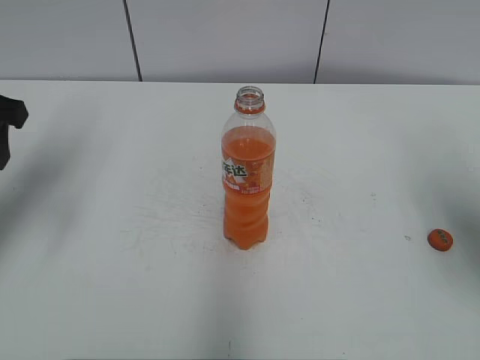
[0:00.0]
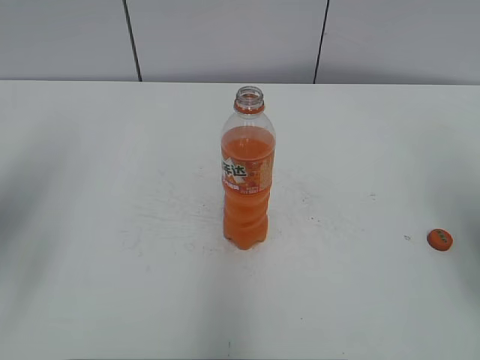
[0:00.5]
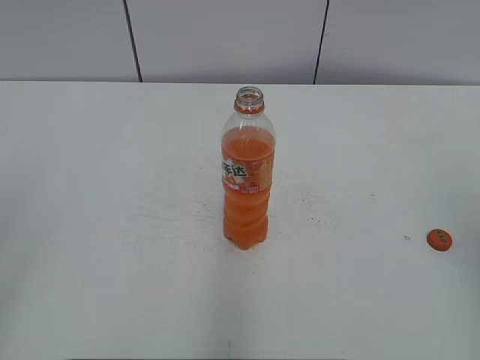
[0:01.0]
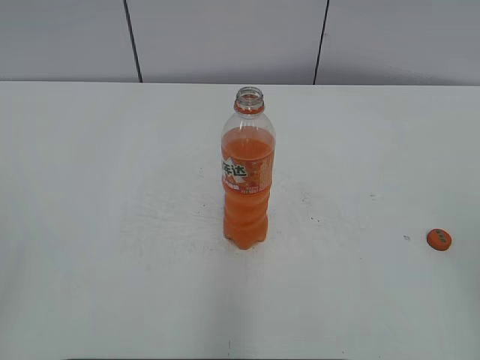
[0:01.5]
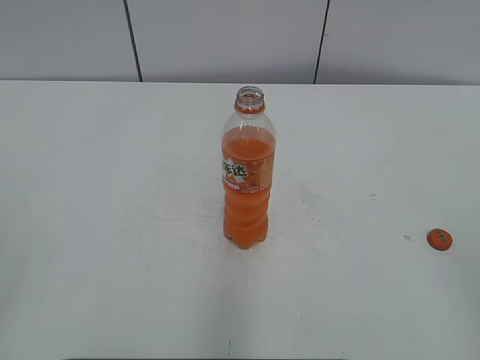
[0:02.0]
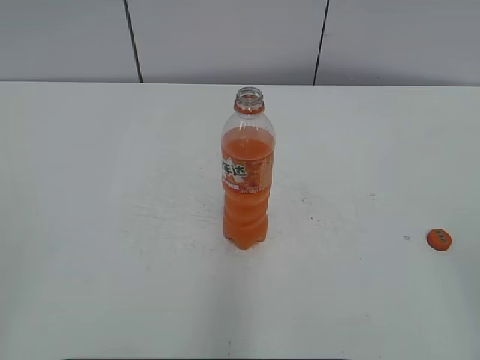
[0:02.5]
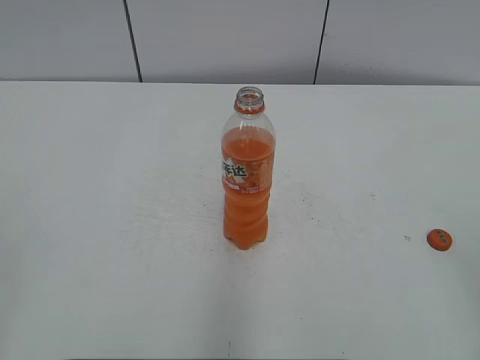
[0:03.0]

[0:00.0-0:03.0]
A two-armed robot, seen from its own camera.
0:00.0 to 0:01.5: Both grippers travel together backward, roughly 25 cm. The left gripper closes up.

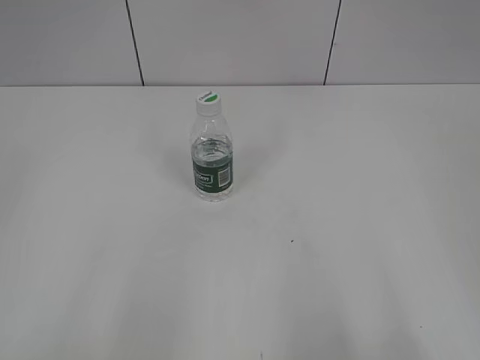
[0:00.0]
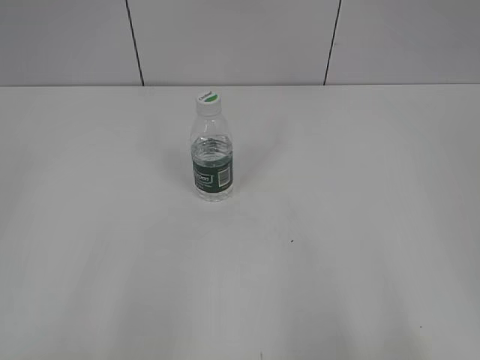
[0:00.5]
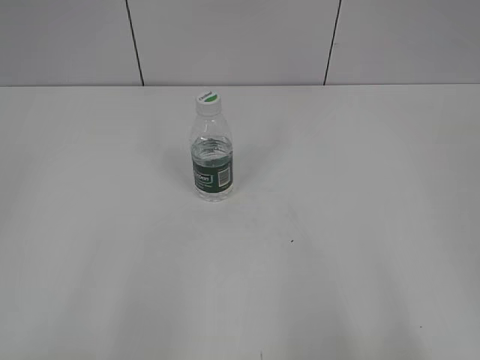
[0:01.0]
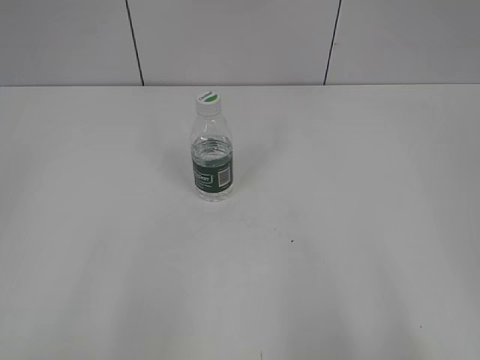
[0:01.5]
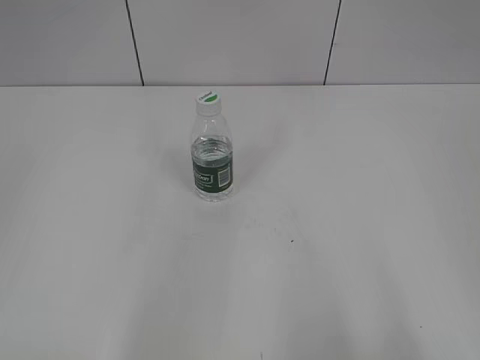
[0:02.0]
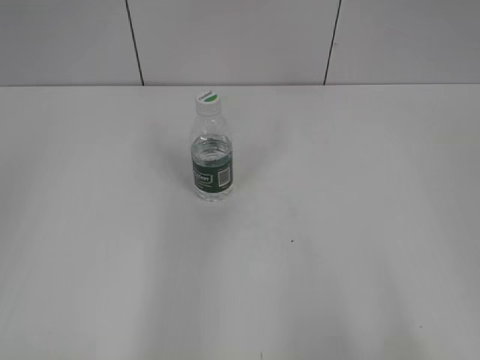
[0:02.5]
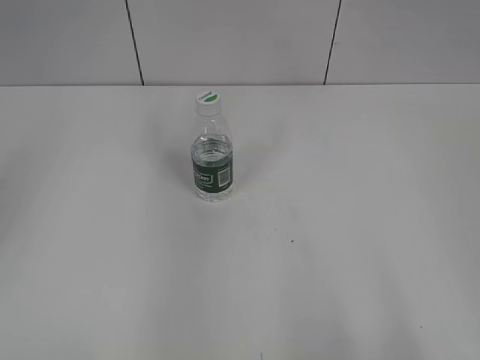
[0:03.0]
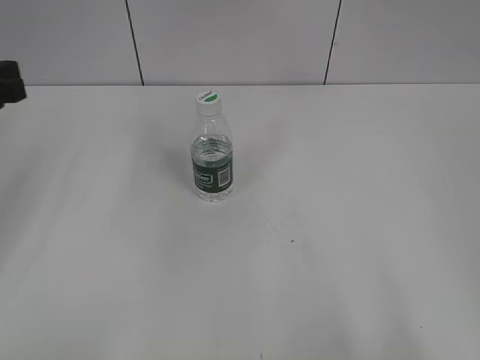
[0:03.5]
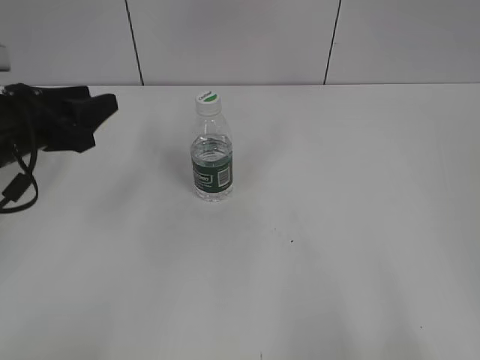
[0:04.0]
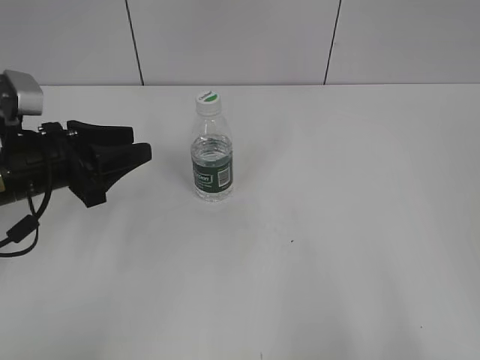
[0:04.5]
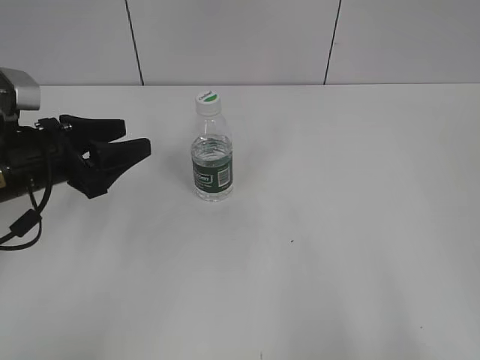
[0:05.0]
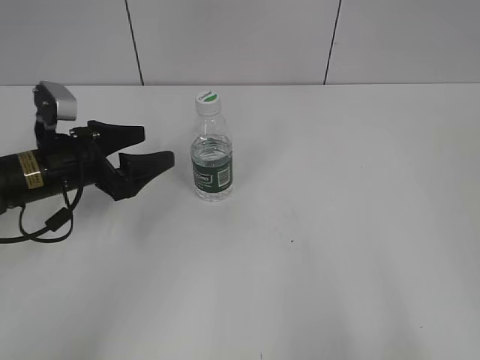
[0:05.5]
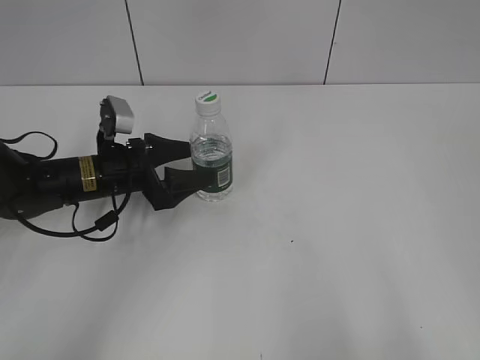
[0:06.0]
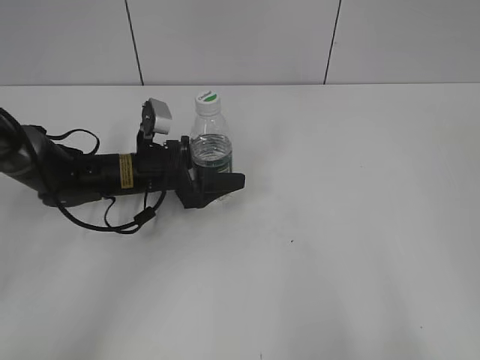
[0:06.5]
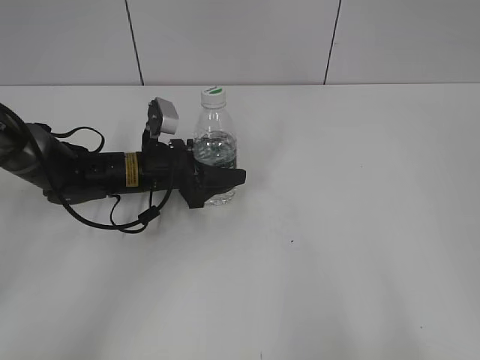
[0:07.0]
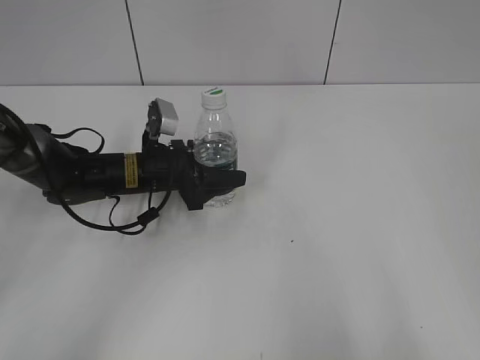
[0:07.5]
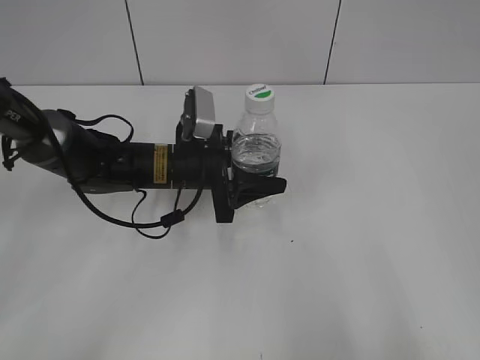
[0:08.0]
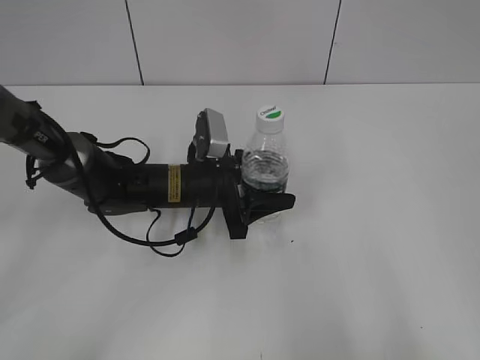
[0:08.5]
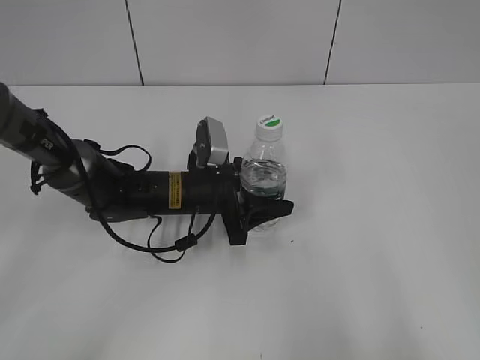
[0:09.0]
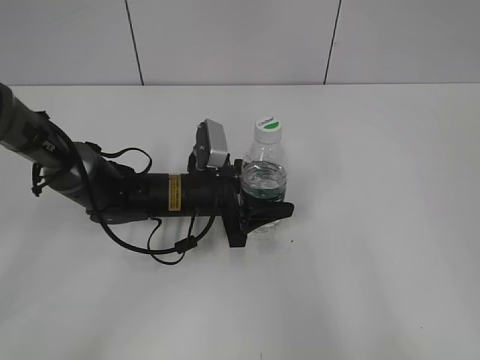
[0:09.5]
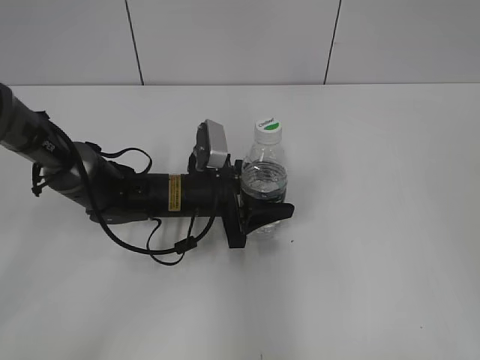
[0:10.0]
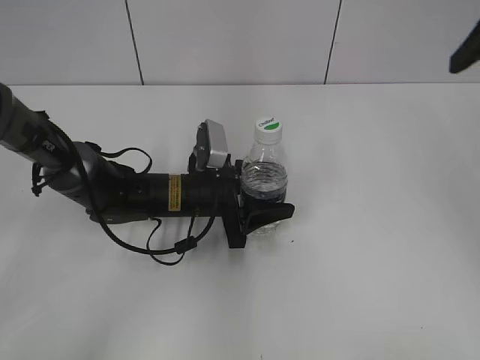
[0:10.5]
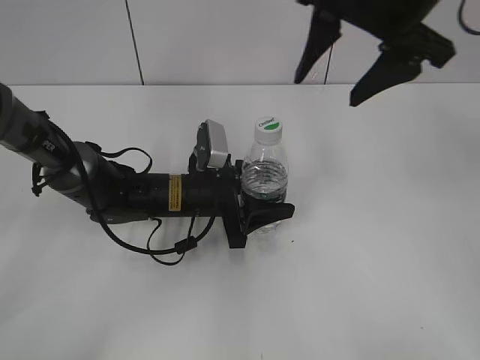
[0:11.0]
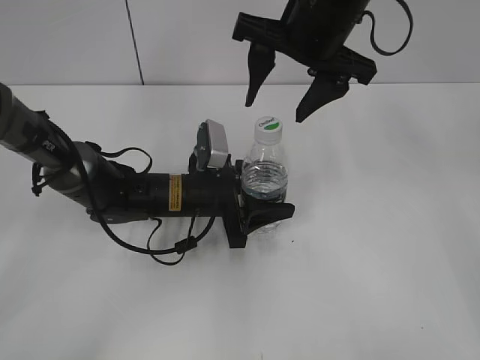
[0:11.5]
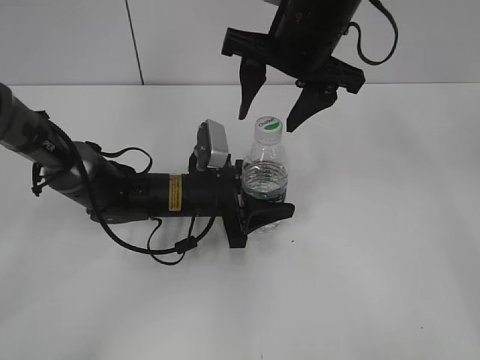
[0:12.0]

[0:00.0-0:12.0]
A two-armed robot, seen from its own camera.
Step, 0:00.0 to 0:07.0: Grasp the bottle and move it to the center of the table with the left gripper.
Step, 0:07.5 to 0:09.5: Lift the bottle and move it to the center of the table with the left gripper.
0:02.0 to 0:04.0: The left gripper goes approximately 35 cm forward and downward.
0:04.0 to 0:06.0: The left gripper goes approximately 15 cm downward, to the right and forward, and opens.
0:06.0 to 0:08.0: The left gripper goes about 10 cm to the right, and closes up.
0:08.0 to 0:10.0: The right gripper heads forward, covering about 10 cm.
0:10.0 to 0:12.0: The right gripper travels forward and to the left by approximately 30 cm.

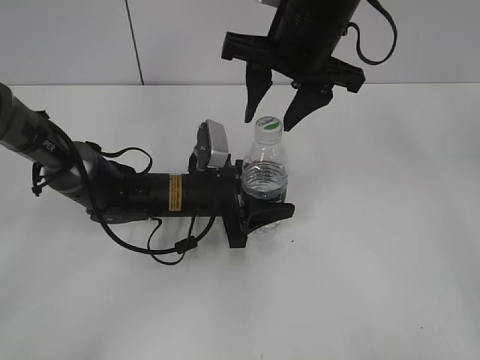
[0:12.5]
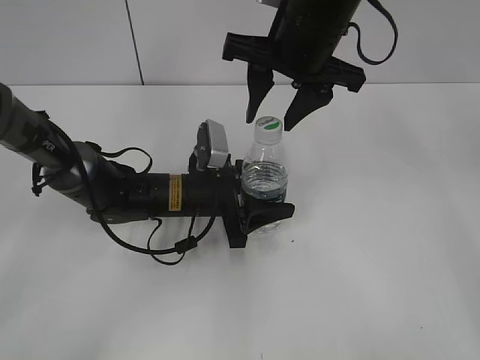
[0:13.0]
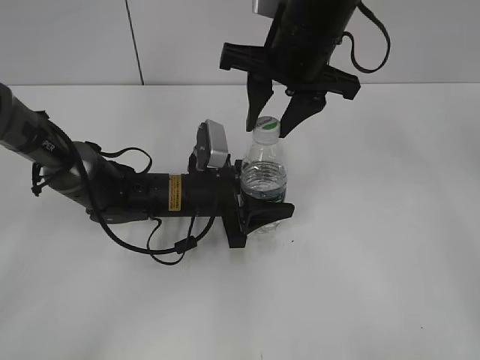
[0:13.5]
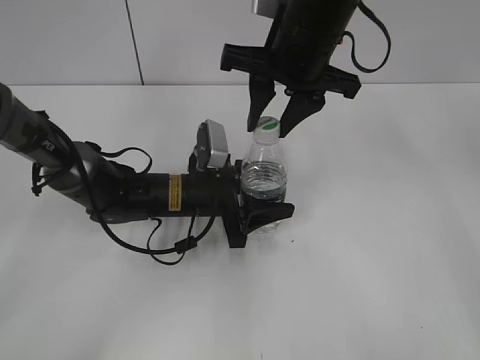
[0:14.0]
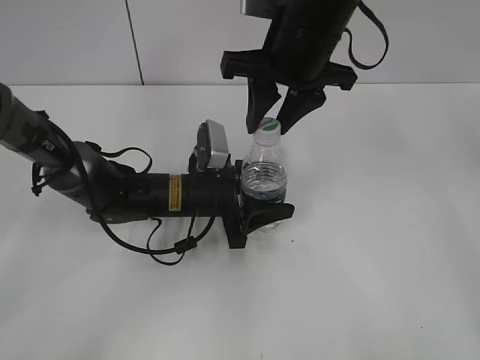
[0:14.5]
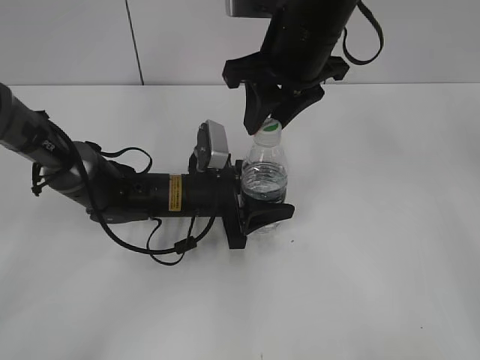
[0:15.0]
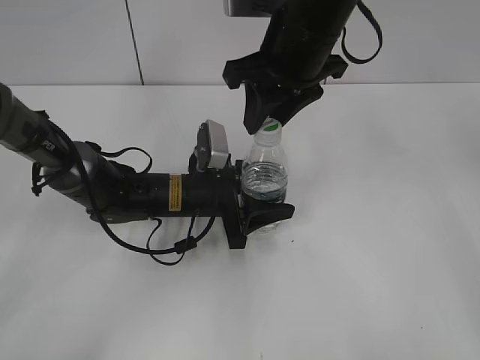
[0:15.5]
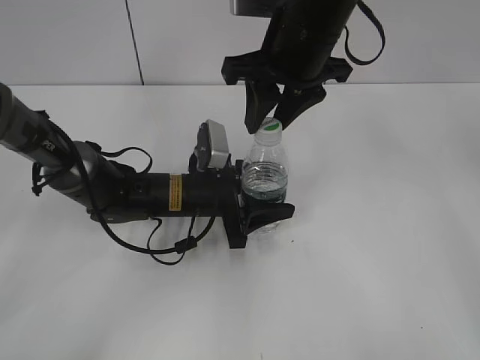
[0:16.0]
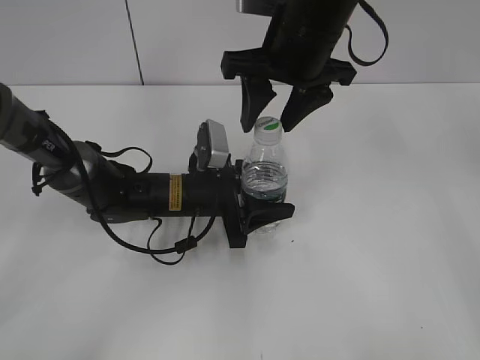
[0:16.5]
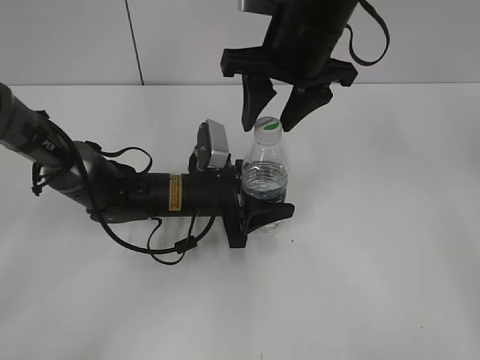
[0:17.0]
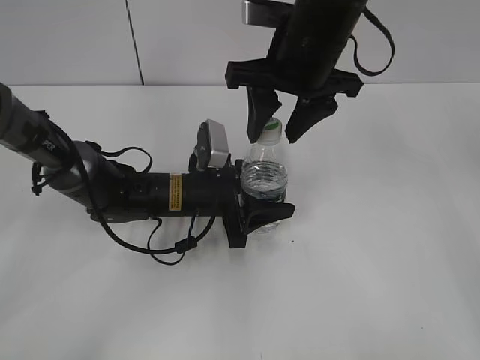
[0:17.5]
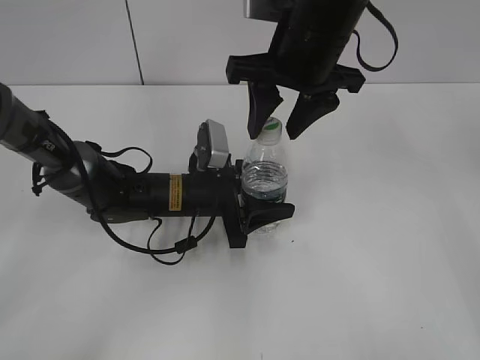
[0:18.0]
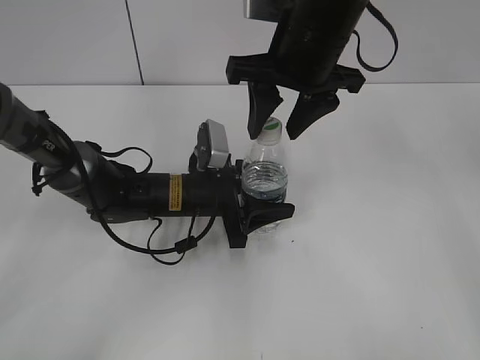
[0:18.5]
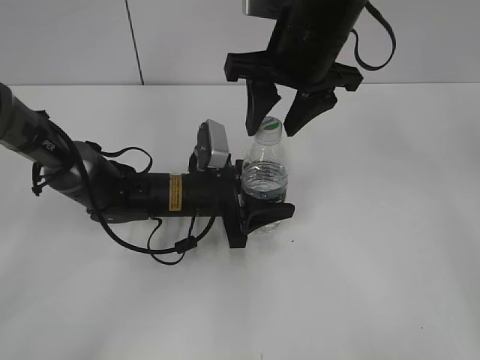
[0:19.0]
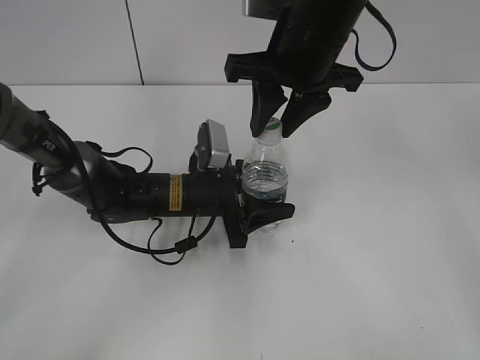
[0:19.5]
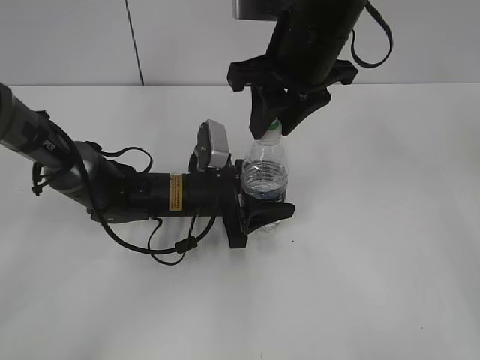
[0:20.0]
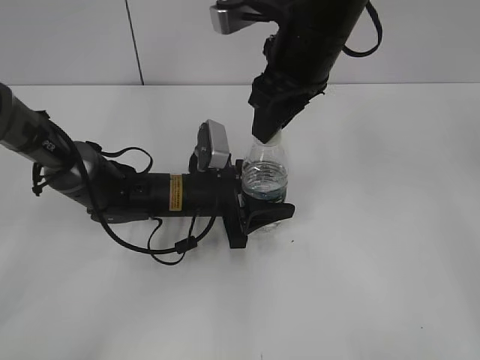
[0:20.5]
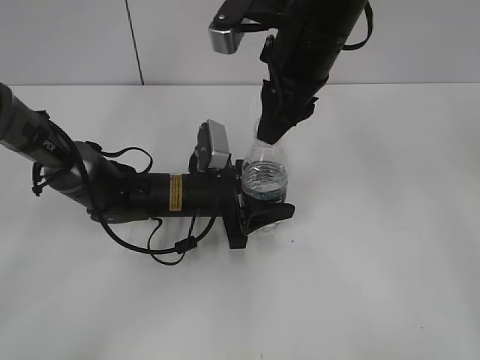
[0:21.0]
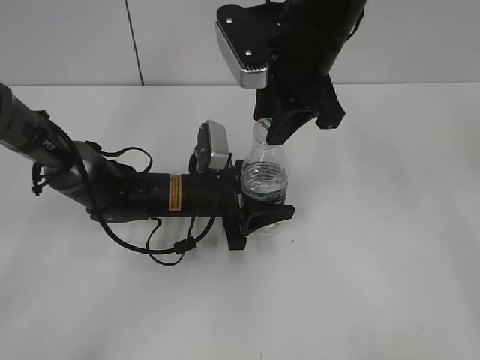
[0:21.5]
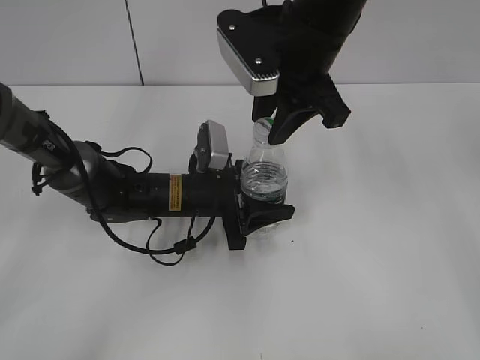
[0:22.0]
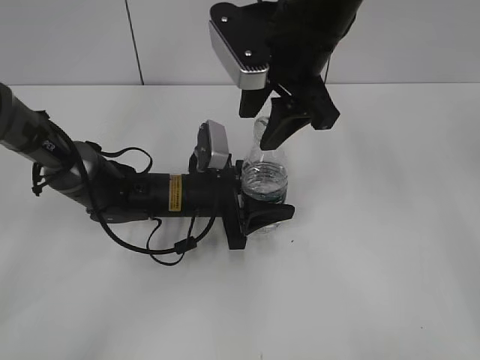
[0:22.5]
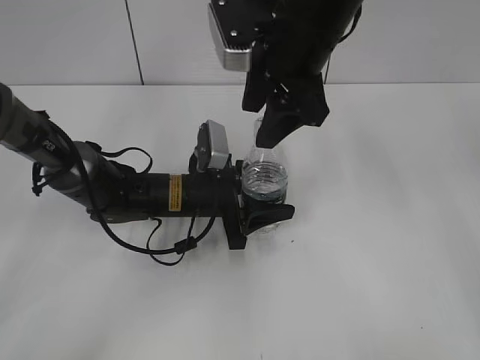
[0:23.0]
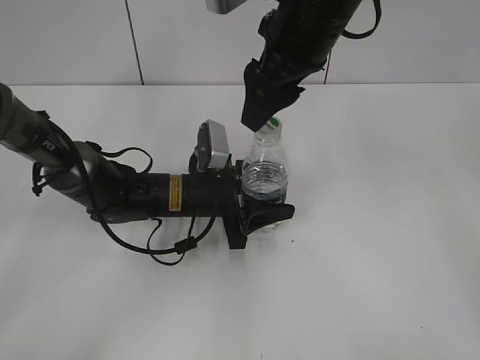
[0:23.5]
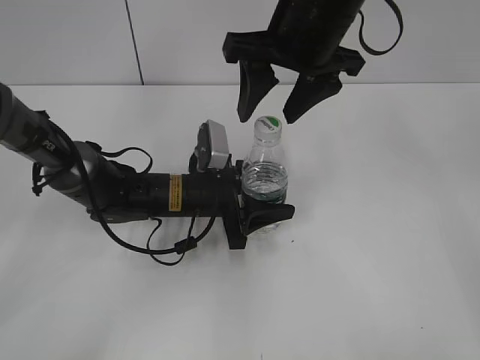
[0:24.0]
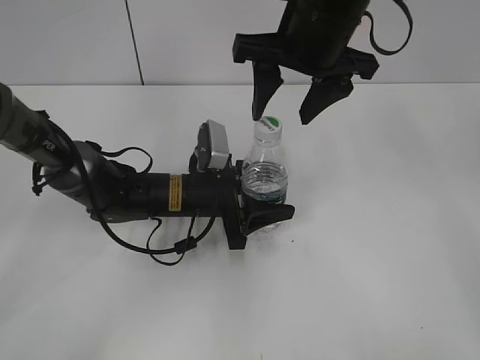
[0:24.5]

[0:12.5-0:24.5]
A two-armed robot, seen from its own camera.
0:12.5 to 0:14.5: The right gripper closes up.
0:14.5 to 0:16.5: The right gripper opens its fingers.
0:16.5 to 0:18.5: Neither gripper changes place.
0:18.5 to 0:20.5: The right gripper closes.
0:20.5 to 0:22.5: The right gripper opens.
